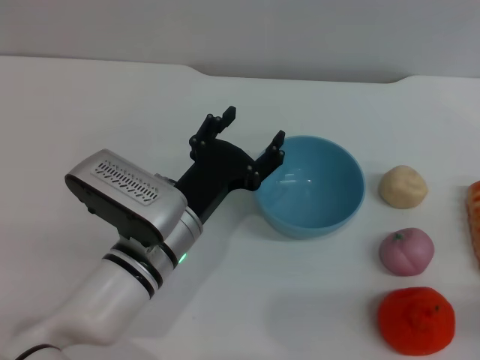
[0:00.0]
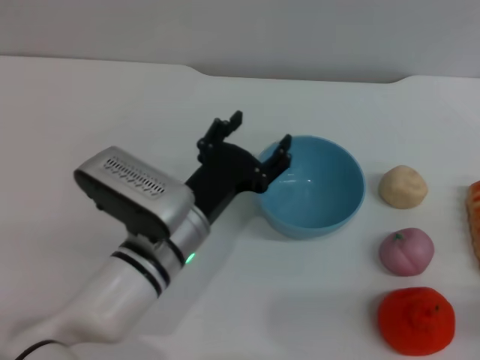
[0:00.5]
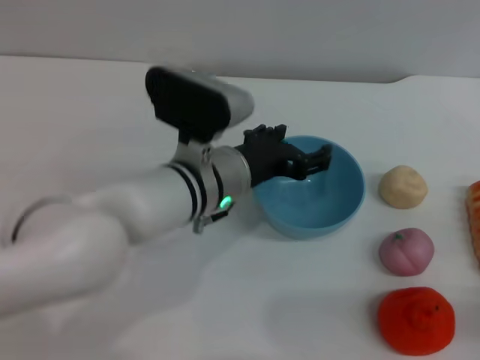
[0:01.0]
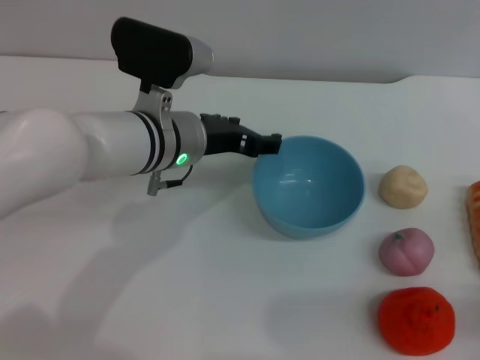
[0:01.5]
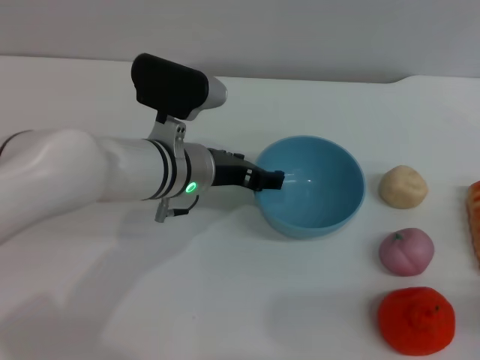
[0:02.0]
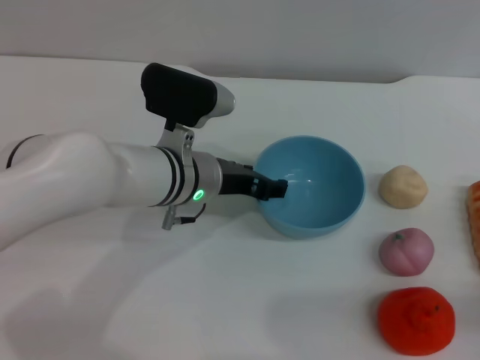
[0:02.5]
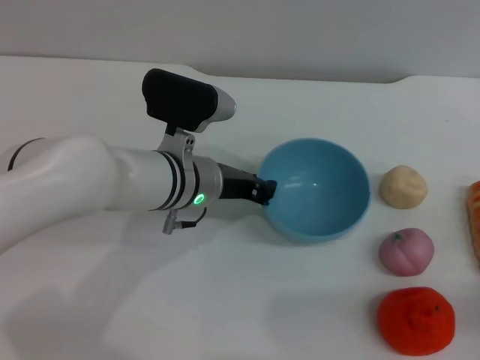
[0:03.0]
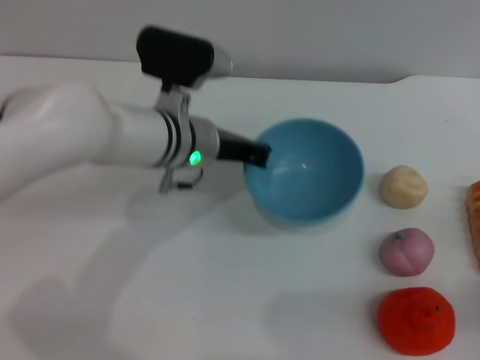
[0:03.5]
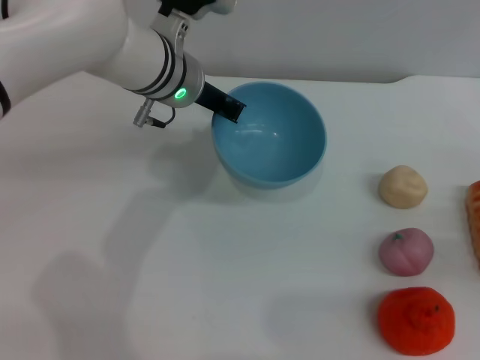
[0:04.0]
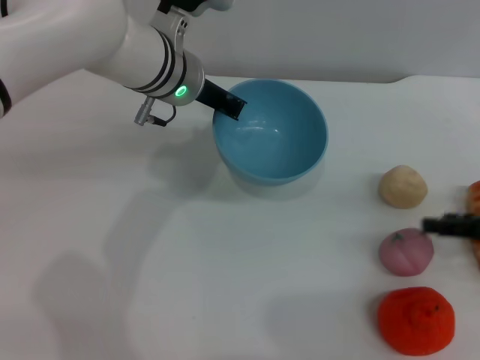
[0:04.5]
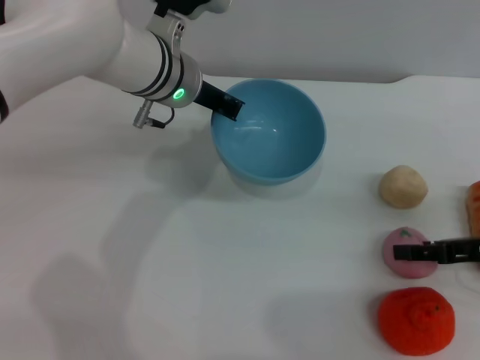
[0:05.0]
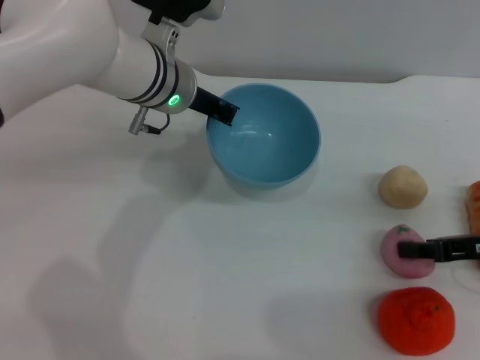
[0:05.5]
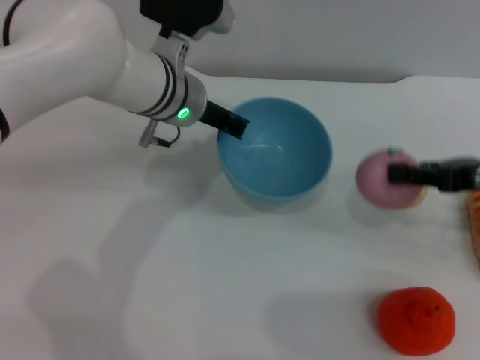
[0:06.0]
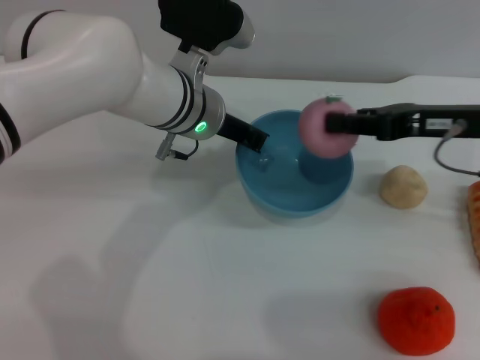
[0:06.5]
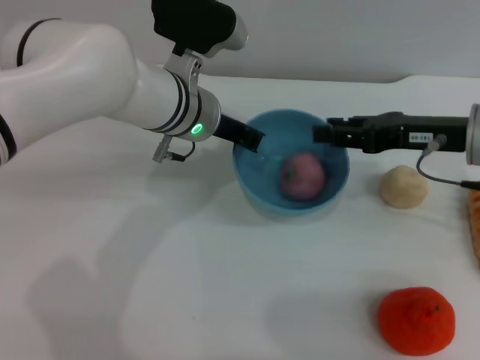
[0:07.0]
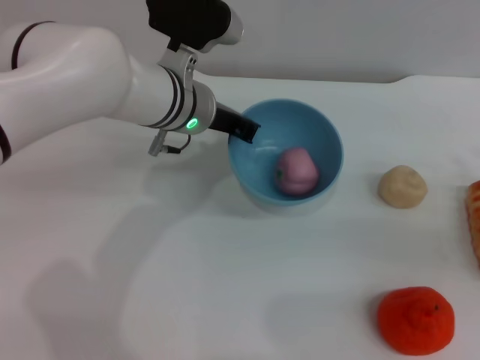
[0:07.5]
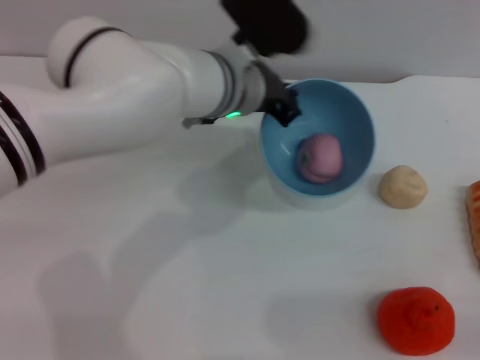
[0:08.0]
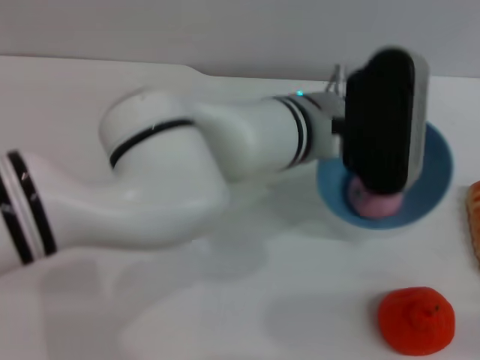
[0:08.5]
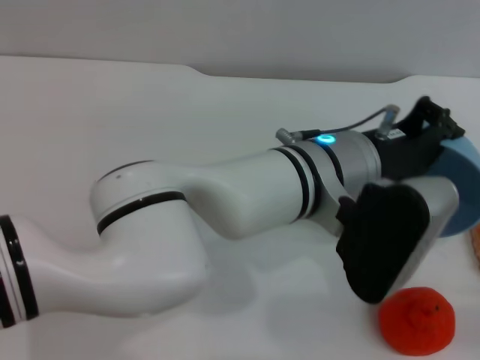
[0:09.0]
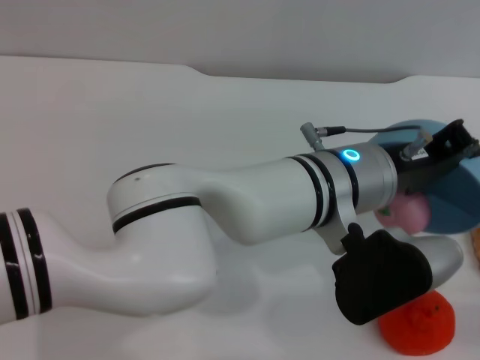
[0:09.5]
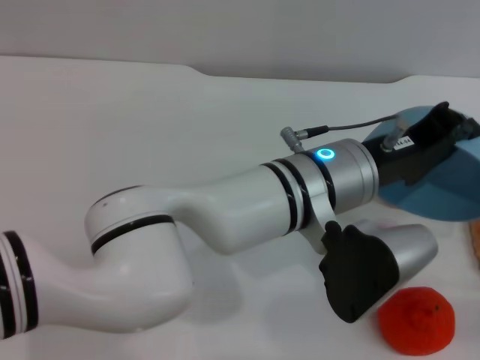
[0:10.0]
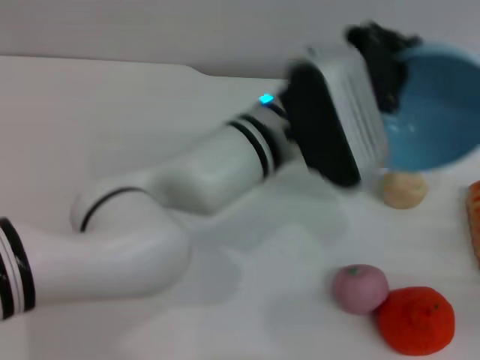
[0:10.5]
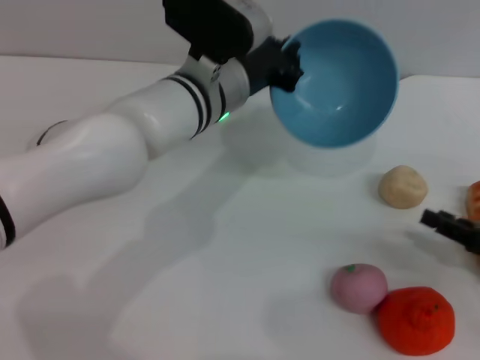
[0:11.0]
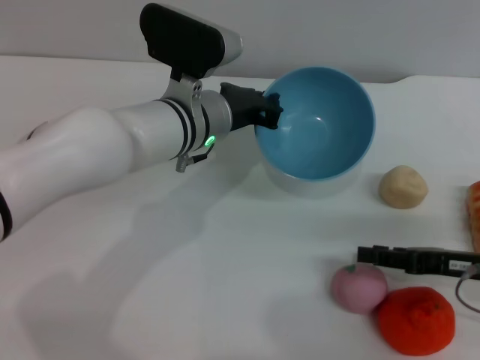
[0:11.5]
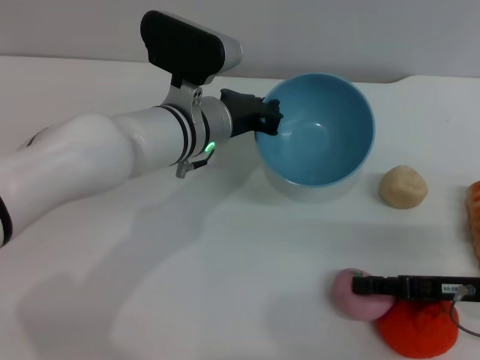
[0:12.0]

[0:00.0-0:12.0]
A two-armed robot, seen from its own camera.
Task of the whole recording: put the peach into the blue bowl and pour it out repeatedly.
Step, 0:00.0 to 0:04.0: Pick up the bowl with the left gripper.
Step, 0:04.5 to 0:06.0: Pick up the peach with the right gripper.
Step, 0:06.5 to 0:07.0: Place the peach into the bowl.
Step, 0:07.5 to 0:10.0: Pour the peach out of bowl.
0:00.0 to 0:02.0: The left gripper heads forward, covering roughly 10 cm.
0:02.0 to 0:04.0: The left gripper moves upward and forward, about 10 cm, and closes up, while the right gripper heads to the right, covering approximately 5 cm.
0:04.0 to 0:06.0: The right gripper shifts about 15 cm to the left, upward and forward, and closes up.
0:06.0 to 0:08.0: The right gripper goes about 20 cm backward, to the right and downward, and opens up. Meanwhile the left gripper moves to the right, approximately 5 cm.
0:08.0 to 0:10.0: The left gripper heads backward and to the right, covering roughly 10 cm.
0:10.0 to 0:12.0: Both grippers travel together to the left and forward, about 15 cm.

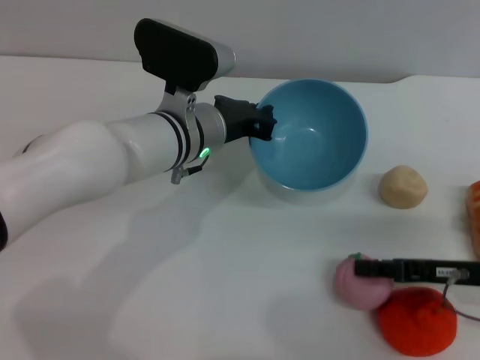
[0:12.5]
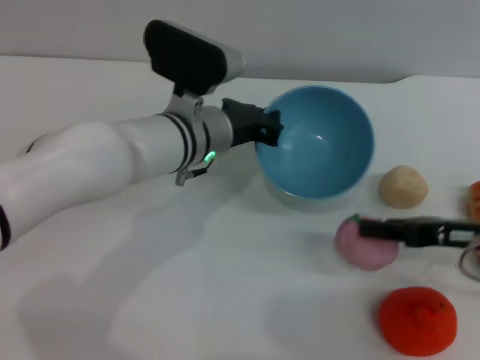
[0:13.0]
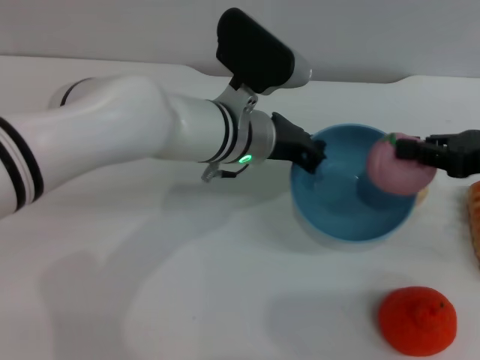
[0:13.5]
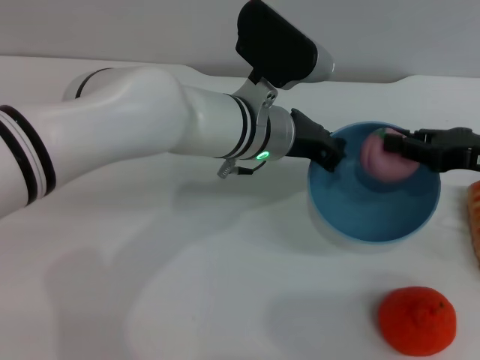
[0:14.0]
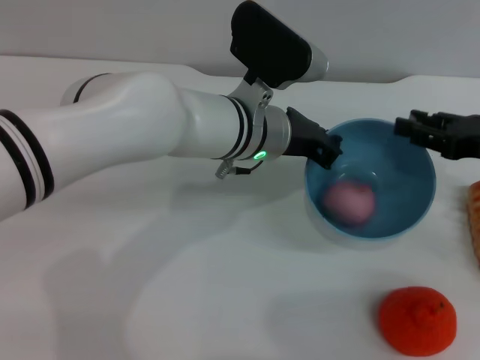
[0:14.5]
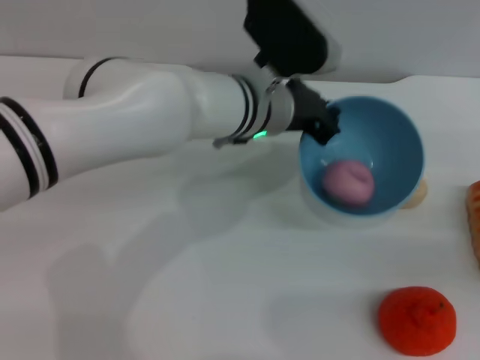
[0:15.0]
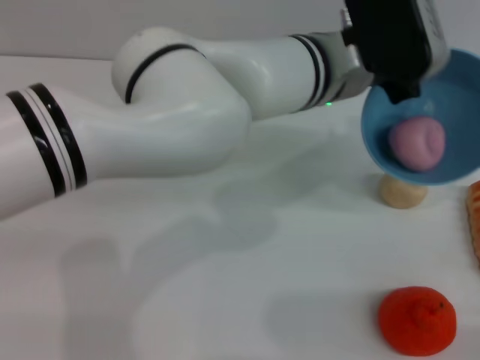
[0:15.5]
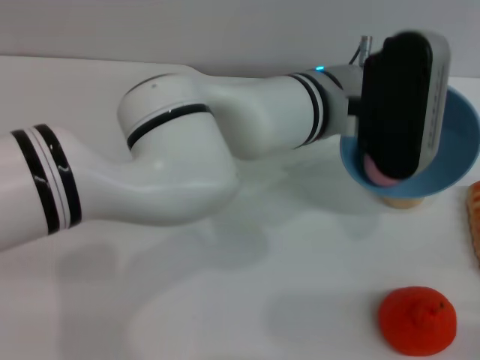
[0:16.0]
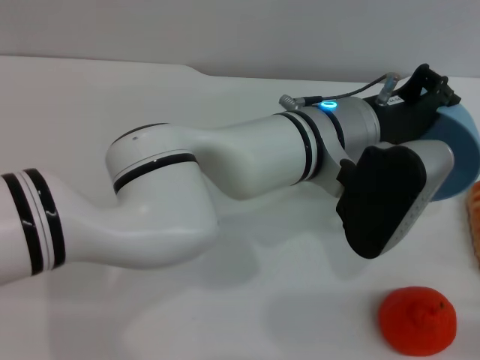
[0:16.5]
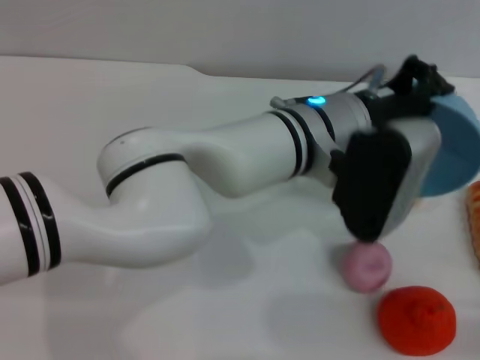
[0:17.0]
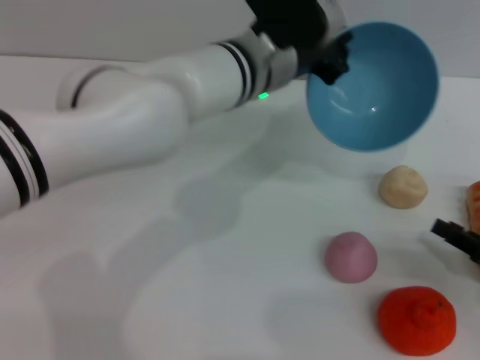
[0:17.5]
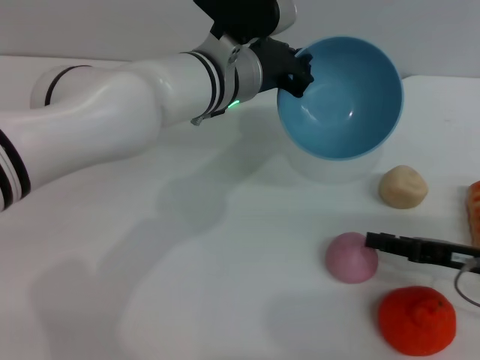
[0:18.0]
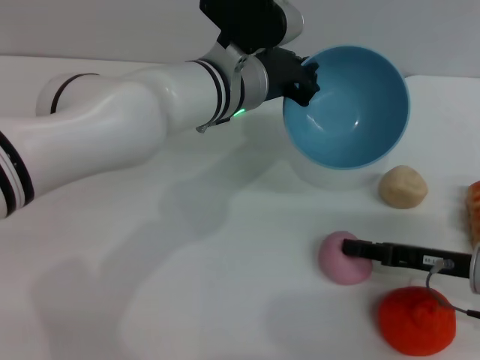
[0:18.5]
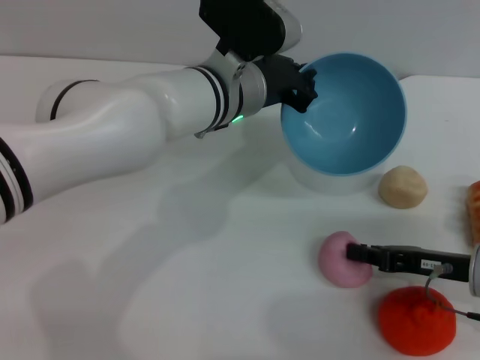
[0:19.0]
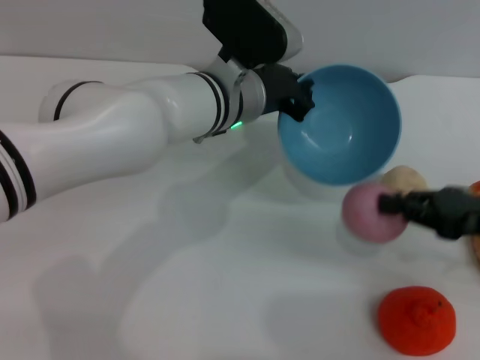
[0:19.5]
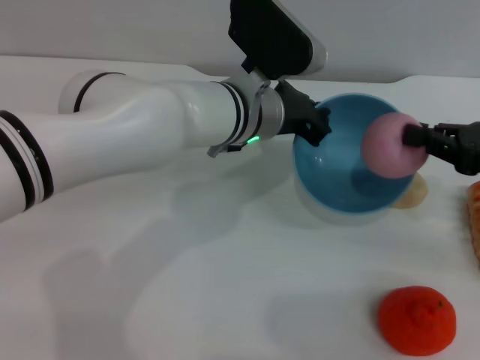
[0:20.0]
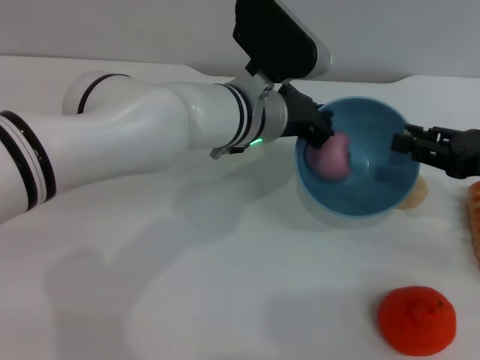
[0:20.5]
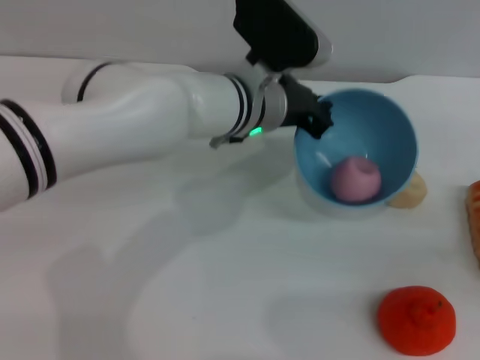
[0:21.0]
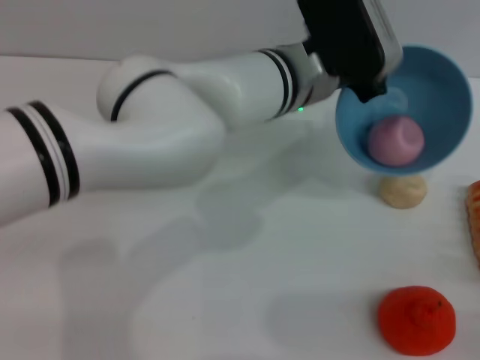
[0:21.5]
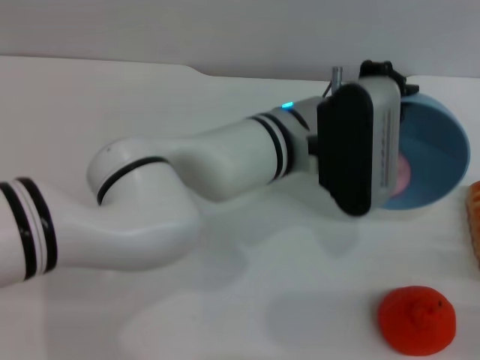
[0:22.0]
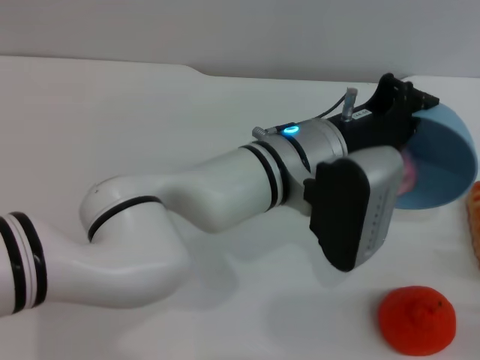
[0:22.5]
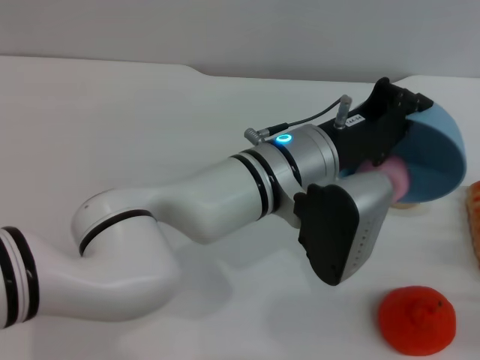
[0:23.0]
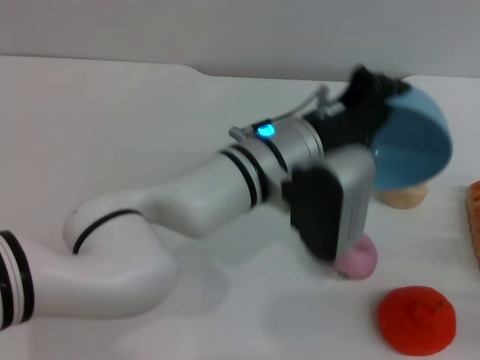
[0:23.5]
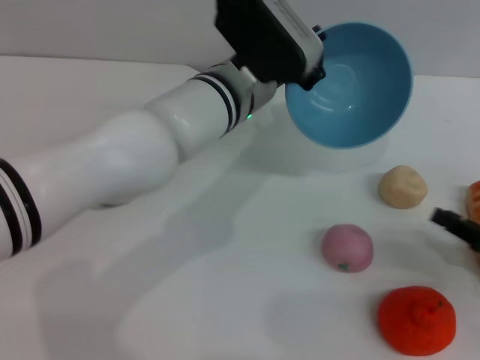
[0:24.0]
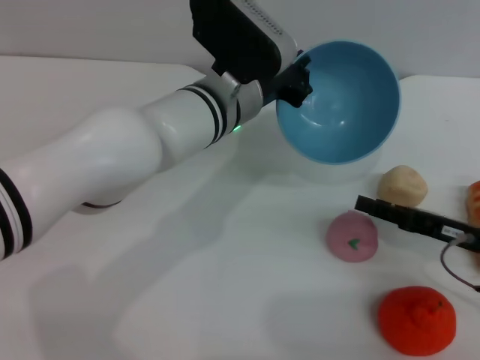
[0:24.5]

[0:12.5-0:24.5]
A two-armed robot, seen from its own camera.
Task of the whole recording: put the peach into the blue bowl and pour it out repeatedly.
Step, 0:13.5 to 0:14.5: Place the peach into the bowl.
Step, 0:15.0 to 0:17.0: Pour the peach out of bowl.
Step, 0:17.5 to 0:19.5: Pick up the peach with the right gripper.
Step, 0:20.0 to 0:20.5: Place the peach into the bowl.
Step, 0:21.0 to 0:23.0: Pour the peach out of bowl.
0:12.5 to 0:14.5: The left gripper travels to the right by roughly 5 cm; the right gripper travels upward and forward by some 10 cm.
0:14.5 to 0:16.5: The left gripper is displaced to the right by some 5 cm; the right gripper is displaced backward, downward and to the right by some 20 cm.
0:16.5 to 0:18.5: Both grippers travel together to the left and forward, some 15 cm.
0:18.5 to 0:20.5: The right gripper travels upward by approximately 10 cm.
0:20.5 to 0:22.5: The left gripper travels backward by approximately 5 cm, while the right gripper heads backward, downward and to the right, covering about 20 cm.
0:22.5 to 0:24.5: The right gripper travels forward and to the left by about 15 cm. The left gripper heads forward and to the left, covering about 10 cm.

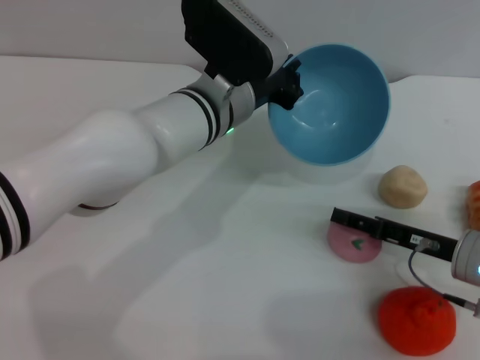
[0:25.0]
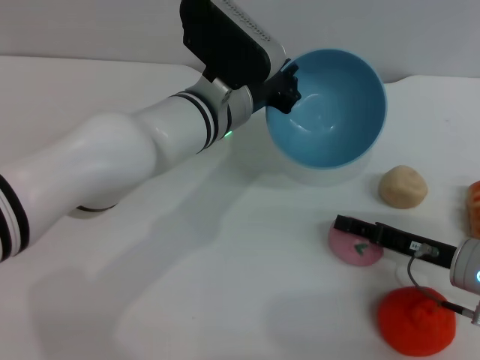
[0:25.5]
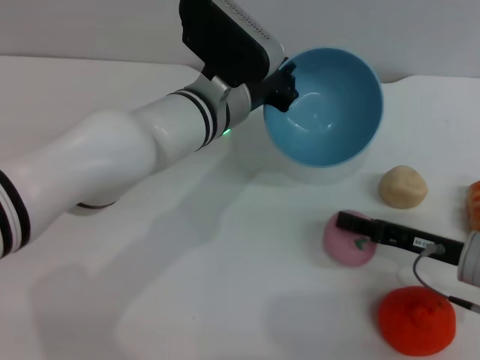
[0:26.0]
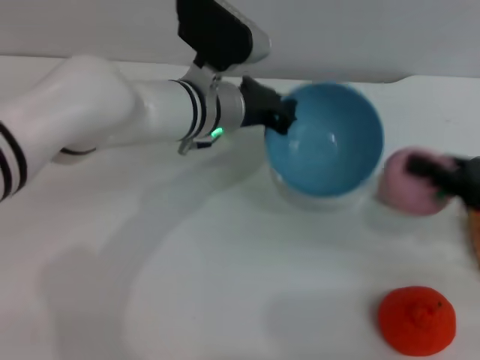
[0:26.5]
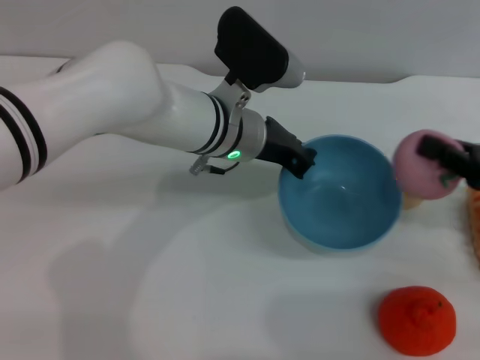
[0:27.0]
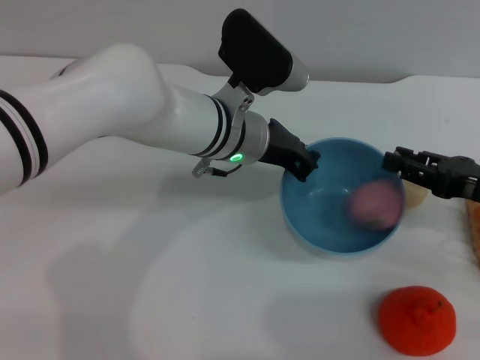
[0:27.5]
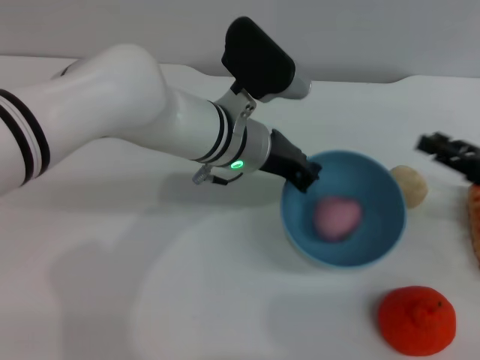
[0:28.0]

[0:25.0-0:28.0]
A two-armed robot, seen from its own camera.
Task of the whole recording: put the peach into the blue bowl and pour it out repeatedly.
Step, 0:26.5 to 0:27.5: Place the peach into the bowl.
0:25.0 to 0:26.5: The right gripper travels upward and to the right by about 10 cm, and closes.
0:26.5 to 0:28.0: The right gripper opens.
